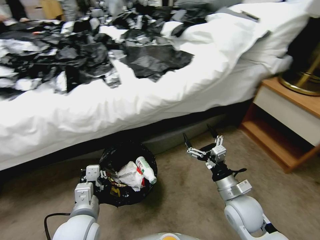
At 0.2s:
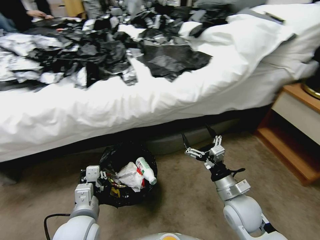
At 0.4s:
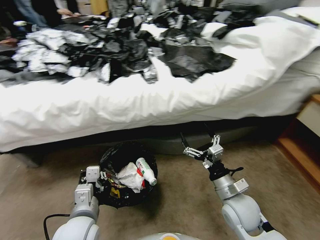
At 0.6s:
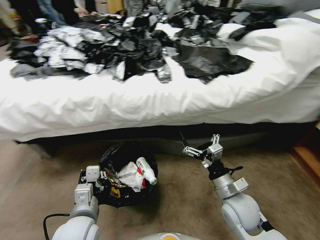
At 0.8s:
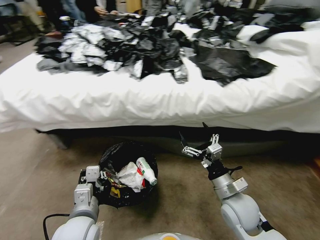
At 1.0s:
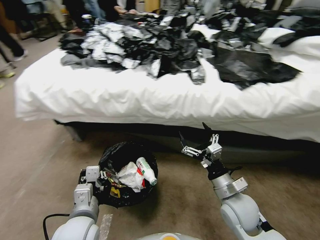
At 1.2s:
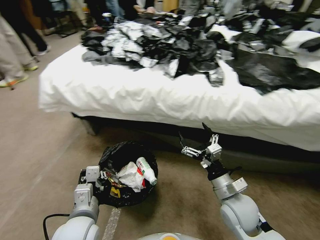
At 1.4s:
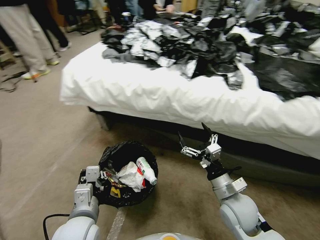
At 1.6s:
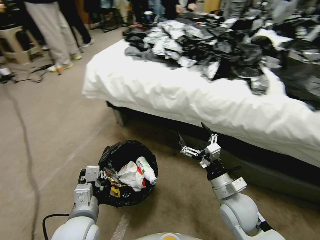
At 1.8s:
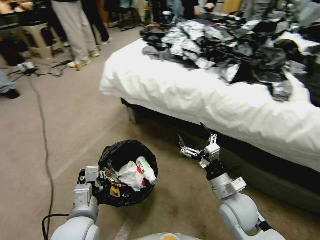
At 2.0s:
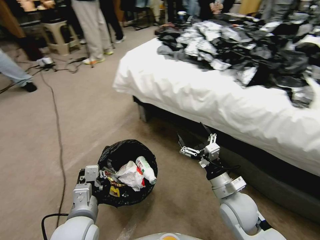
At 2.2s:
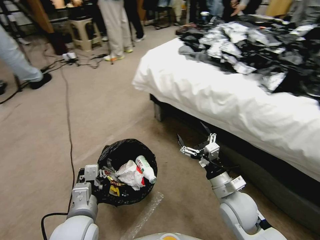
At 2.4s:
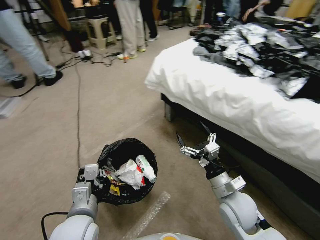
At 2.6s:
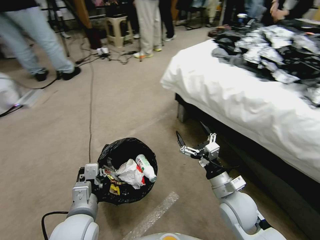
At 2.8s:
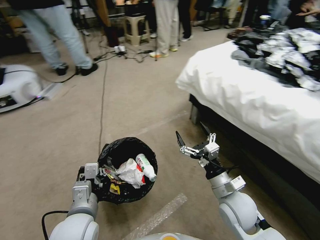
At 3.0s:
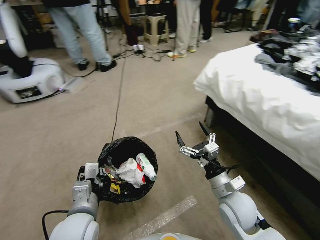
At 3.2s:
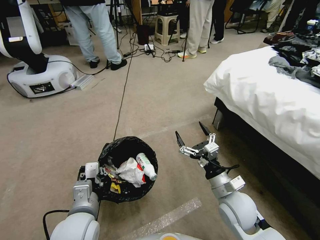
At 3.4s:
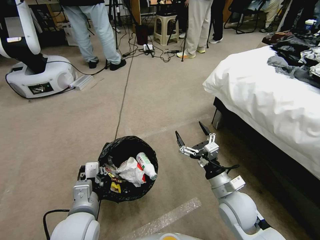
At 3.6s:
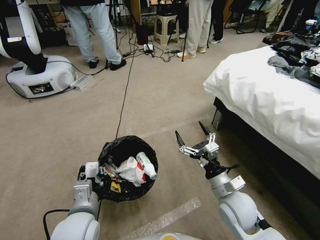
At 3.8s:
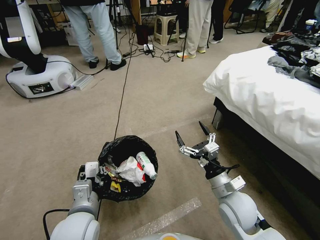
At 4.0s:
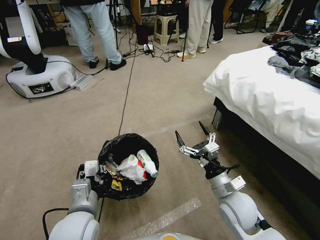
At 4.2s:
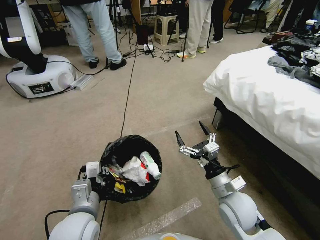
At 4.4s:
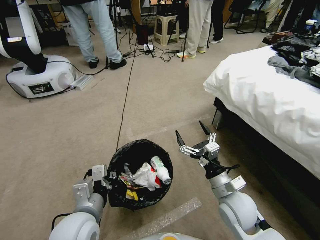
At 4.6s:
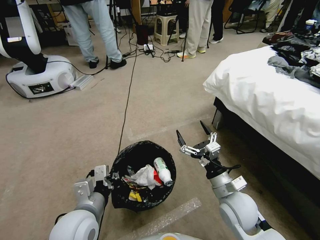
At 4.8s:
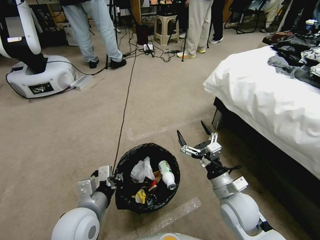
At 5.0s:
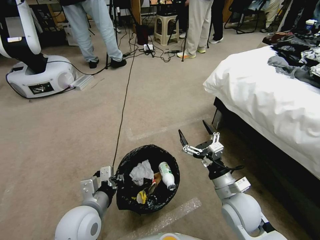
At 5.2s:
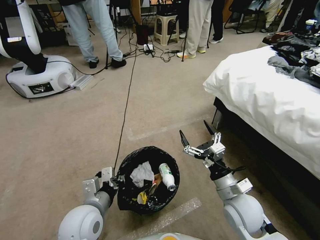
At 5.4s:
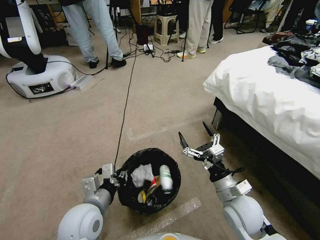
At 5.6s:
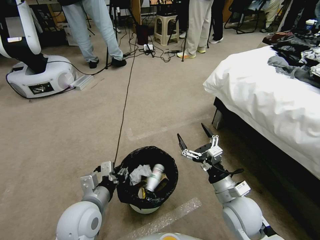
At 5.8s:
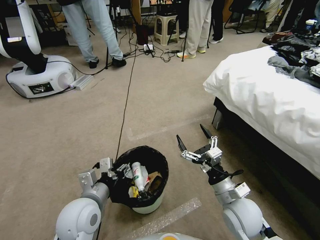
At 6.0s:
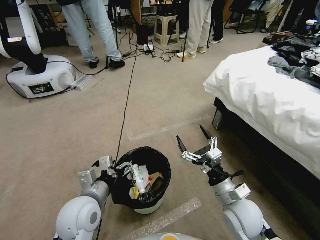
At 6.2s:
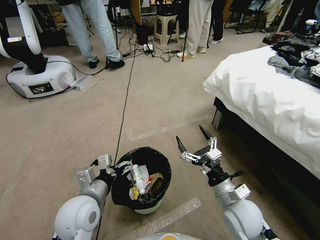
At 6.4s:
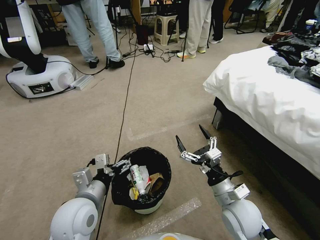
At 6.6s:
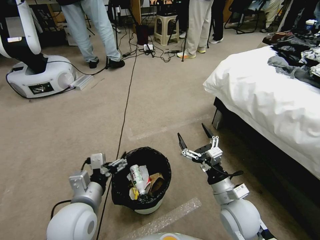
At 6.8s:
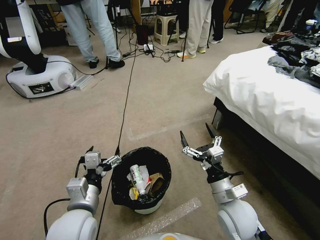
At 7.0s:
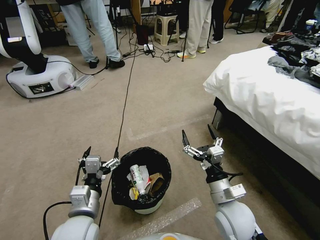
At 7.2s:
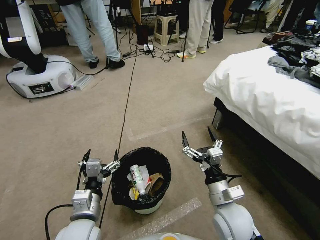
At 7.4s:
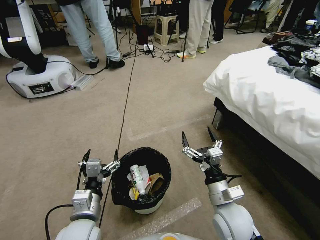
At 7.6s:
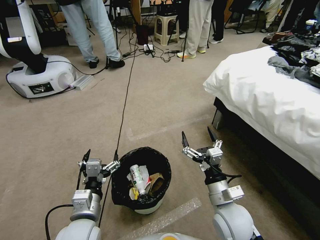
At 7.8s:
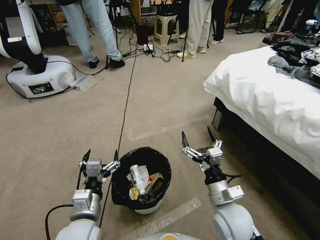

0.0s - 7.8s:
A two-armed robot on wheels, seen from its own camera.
Task of the whole recording: Pick up the trash bin, then pick up the garbage from the floor and place it into the trash bin.
4.6s - 6.2s: The left gripper opens.
6.2s - 7.8s: The left gripper moves some 5 cm.
